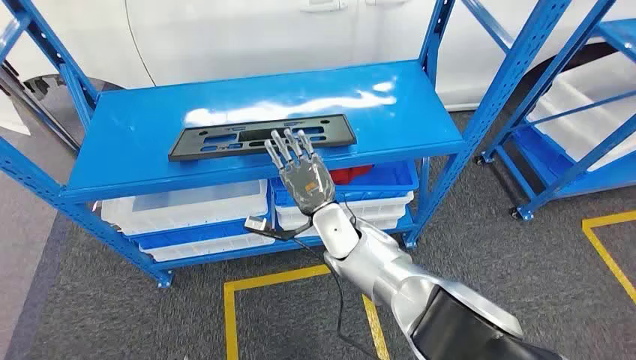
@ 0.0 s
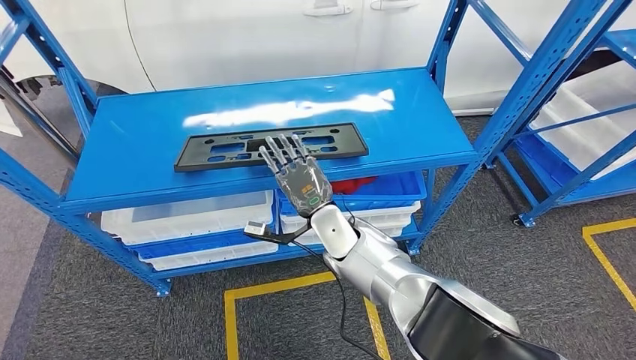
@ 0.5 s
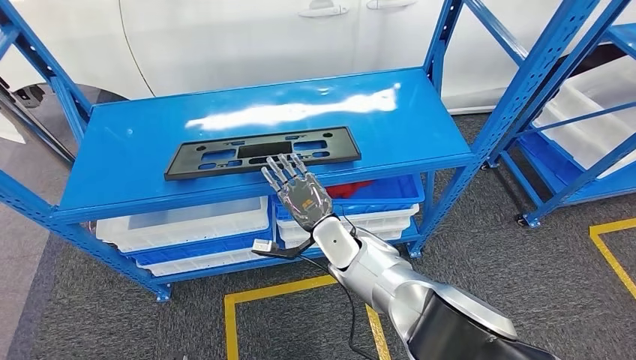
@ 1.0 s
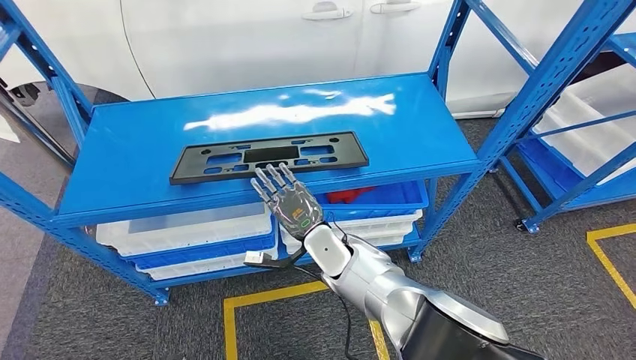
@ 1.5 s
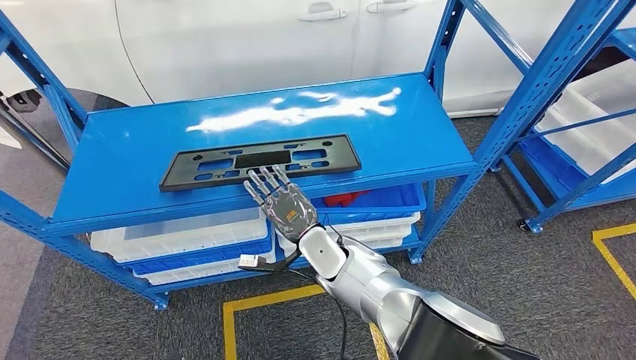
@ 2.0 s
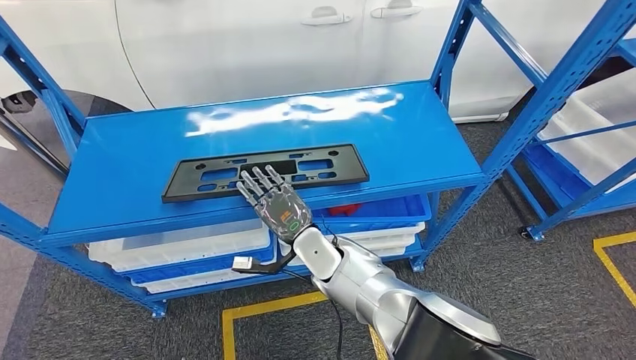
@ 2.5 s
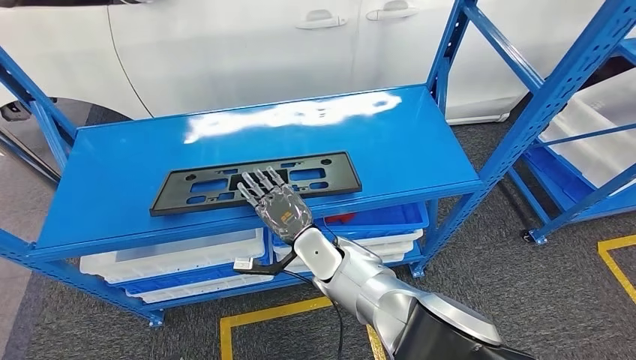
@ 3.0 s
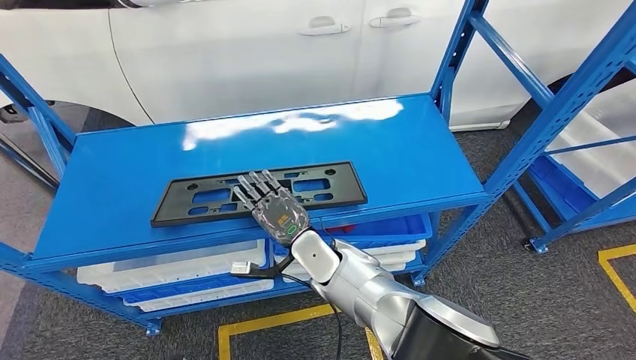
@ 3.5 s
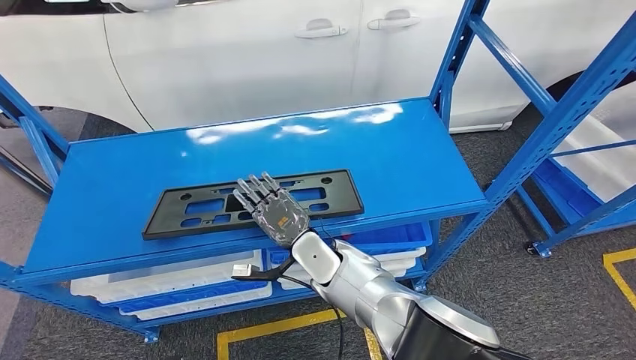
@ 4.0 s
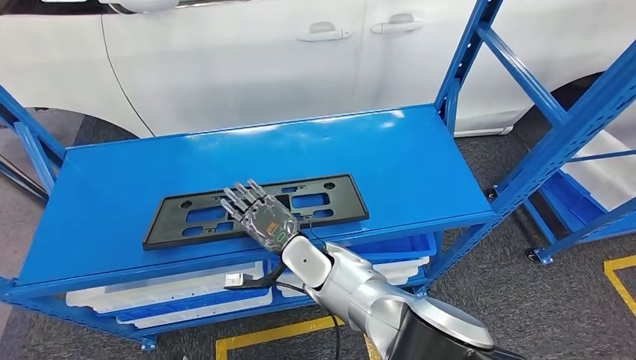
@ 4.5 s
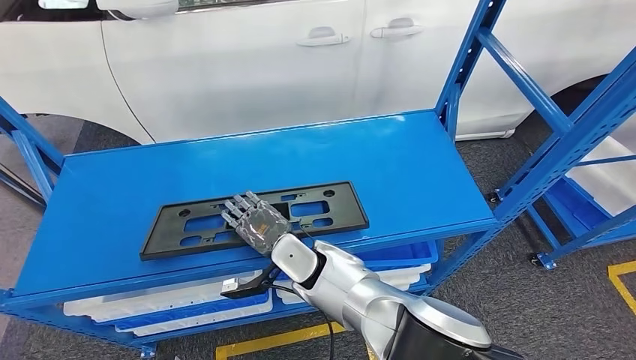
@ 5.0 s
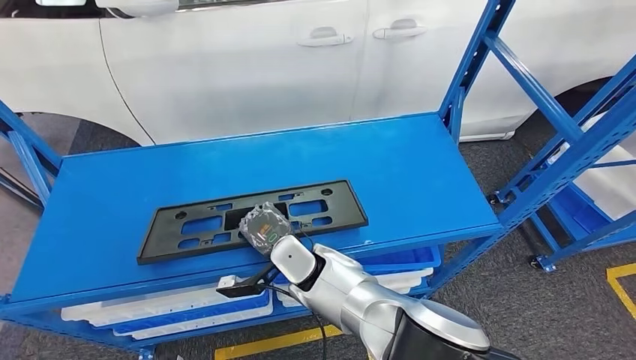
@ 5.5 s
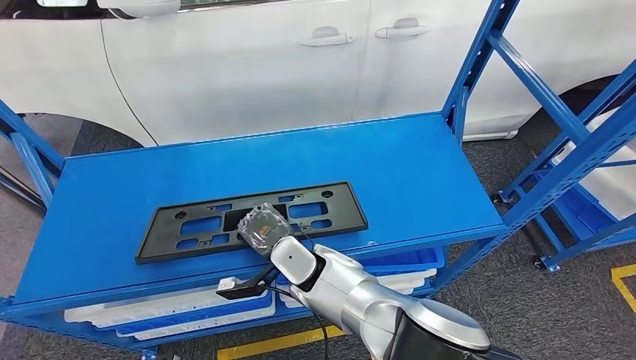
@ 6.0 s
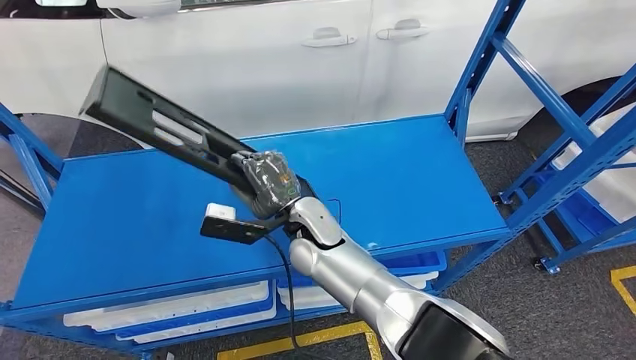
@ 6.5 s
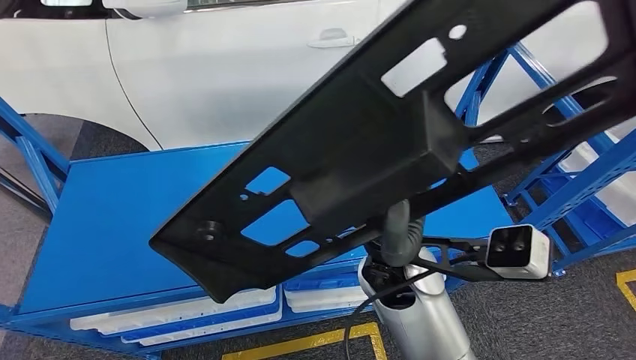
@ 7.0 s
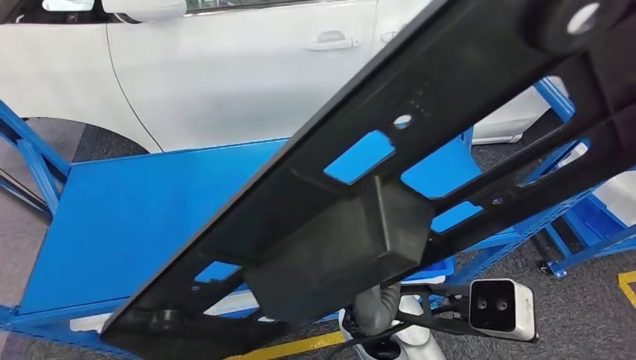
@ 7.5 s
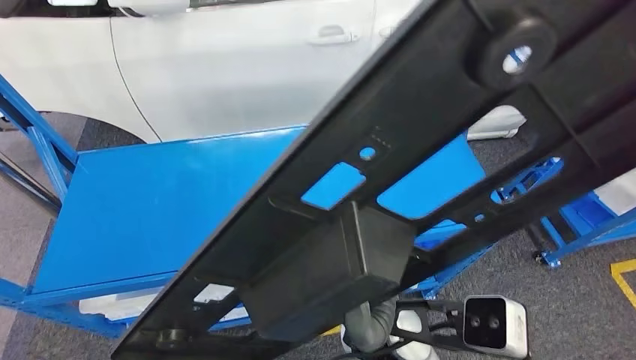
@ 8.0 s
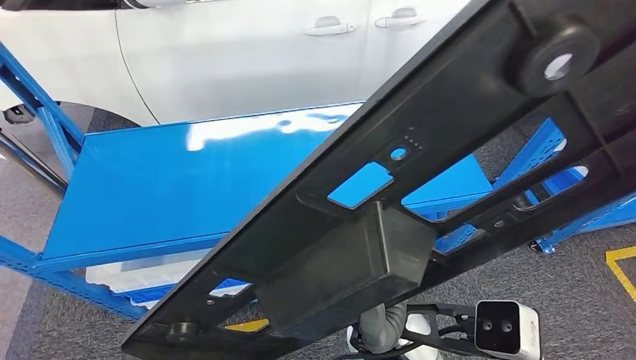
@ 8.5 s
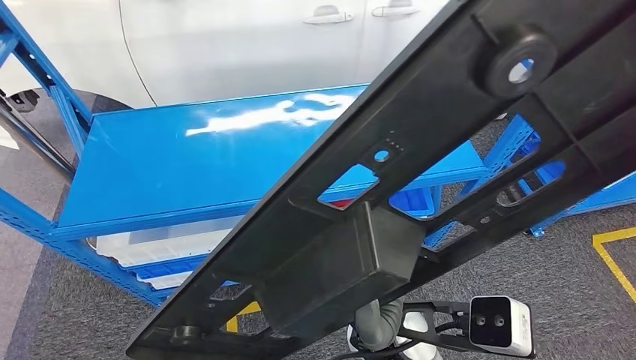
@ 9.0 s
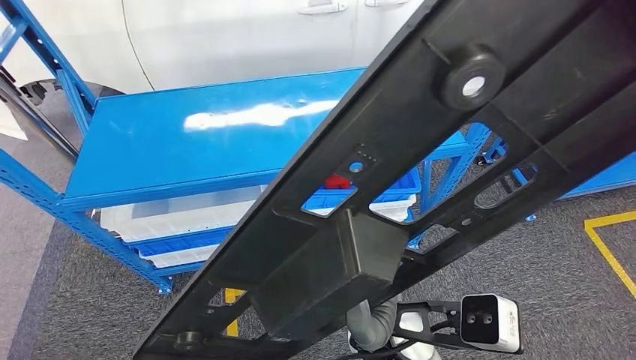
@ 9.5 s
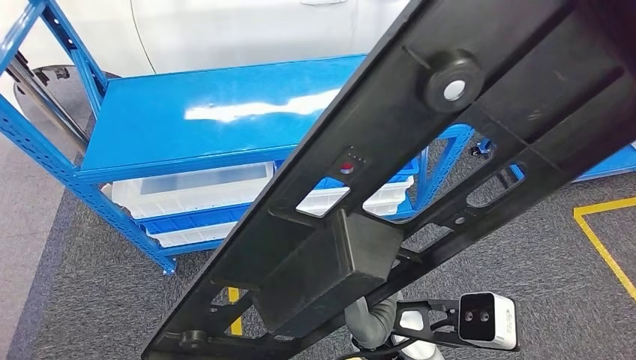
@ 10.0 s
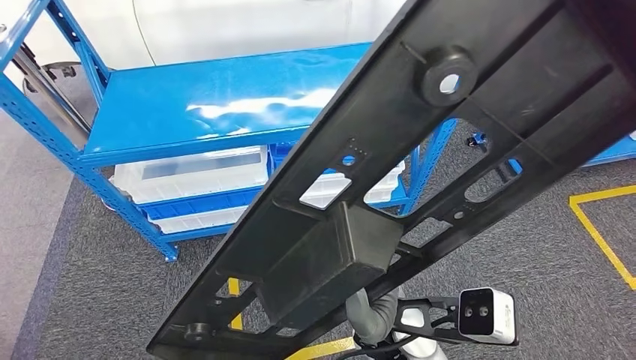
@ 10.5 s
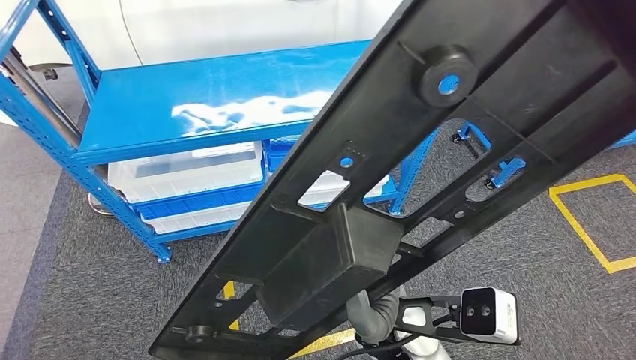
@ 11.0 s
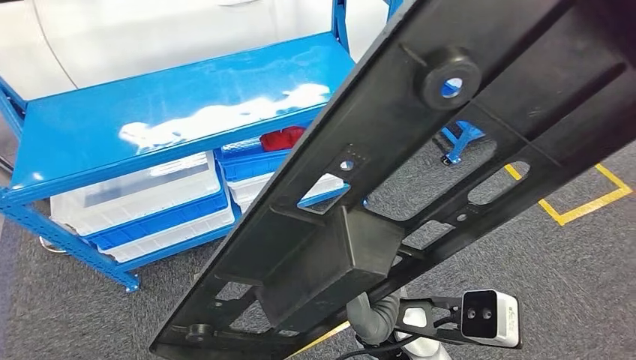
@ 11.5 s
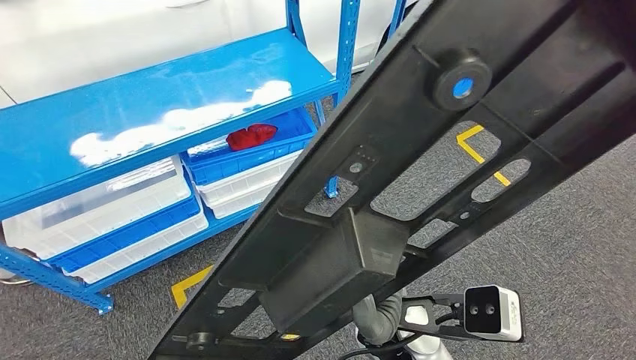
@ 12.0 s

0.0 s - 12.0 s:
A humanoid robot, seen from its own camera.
Step, 0.0 s - 6.5 s: Pick up the large material from the shelf.

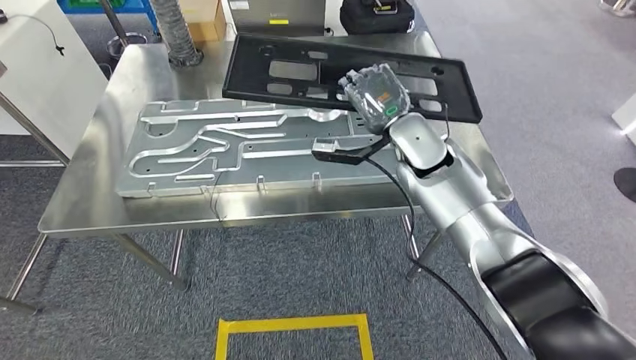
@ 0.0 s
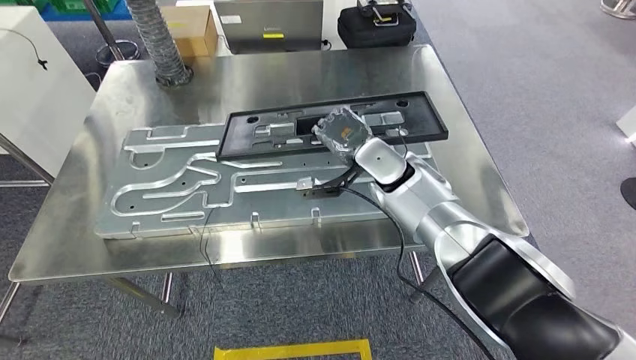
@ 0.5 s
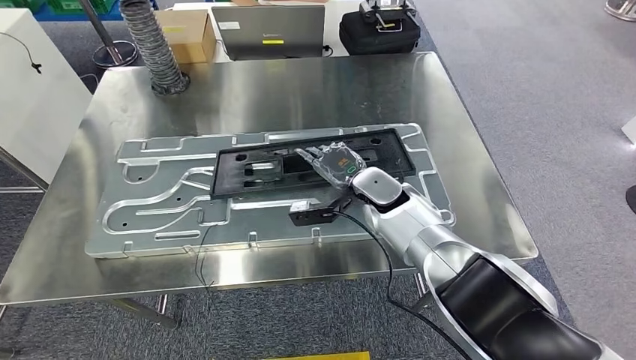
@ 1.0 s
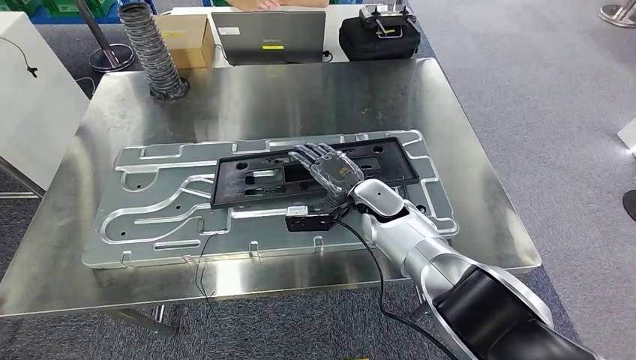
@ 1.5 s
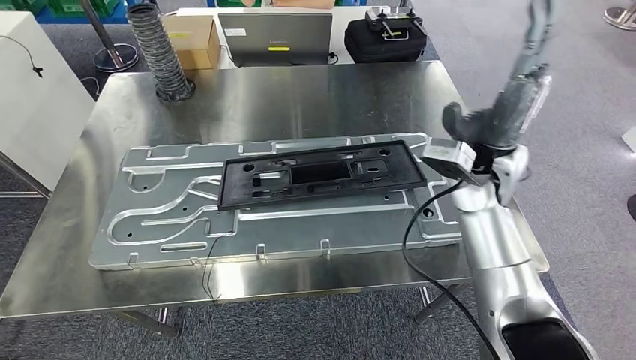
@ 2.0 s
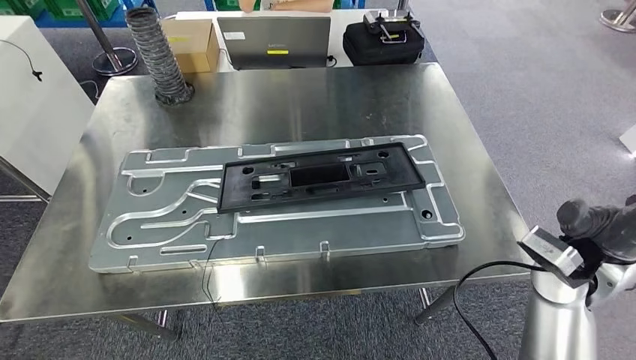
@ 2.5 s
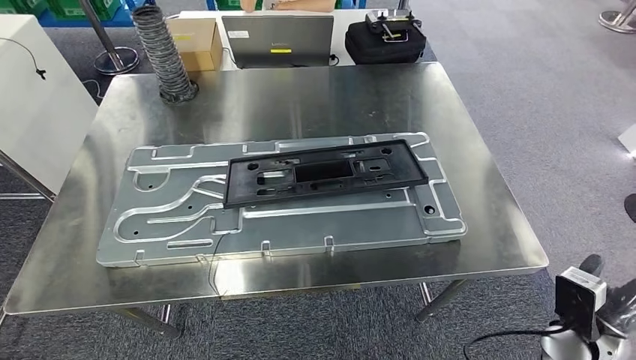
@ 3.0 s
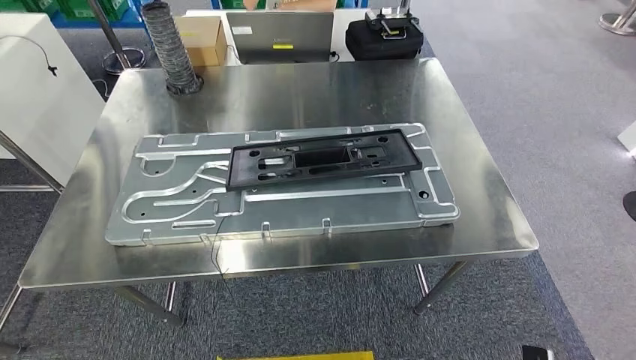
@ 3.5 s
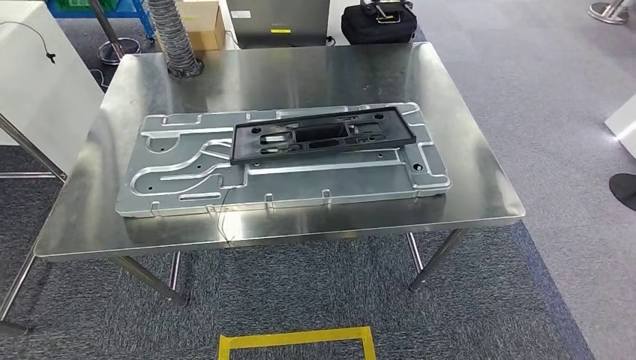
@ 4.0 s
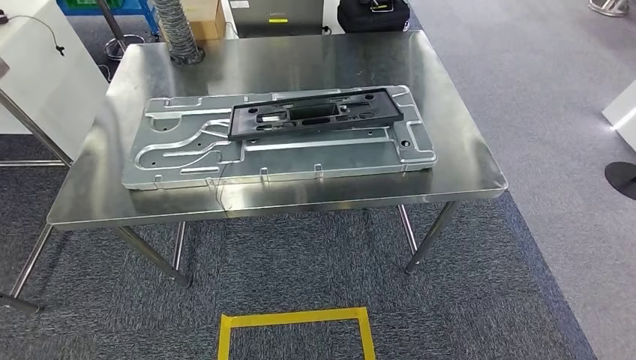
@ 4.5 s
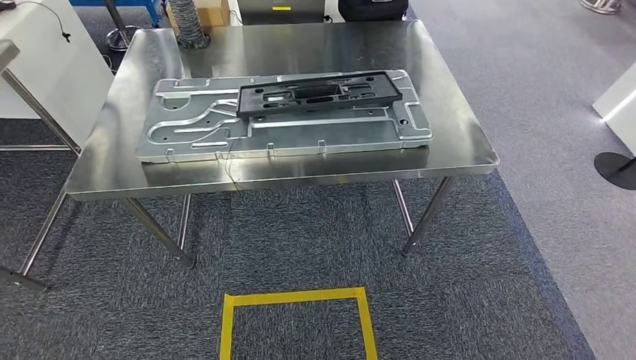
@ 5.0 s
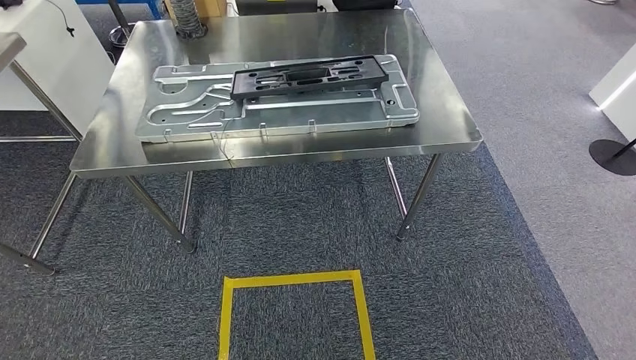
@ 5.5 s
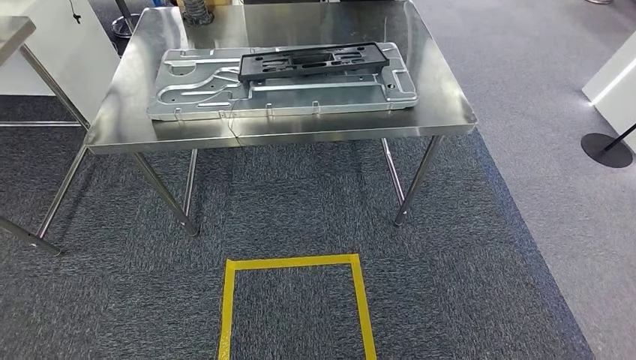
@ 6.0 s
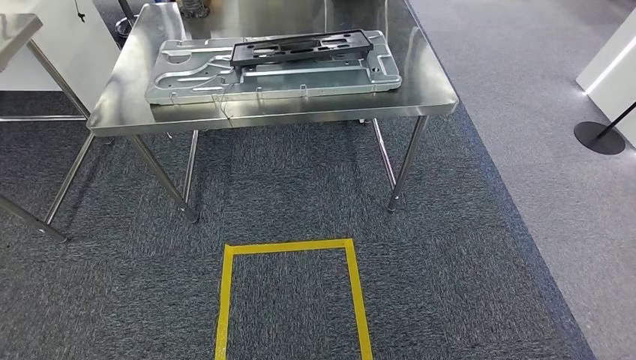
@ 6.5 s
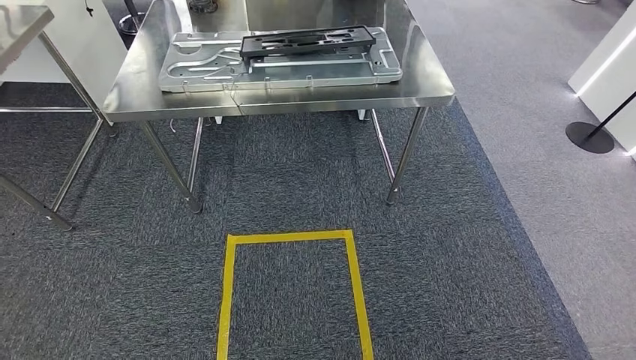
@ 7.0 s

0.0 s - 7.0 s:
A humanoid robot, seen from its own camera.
Step, 0.0 s - 2.5 s: Insert the large material into the corresponding slot on the workbench.
Step, 3.0 s - 7.0 s: Move to the initial position of the shelf.
